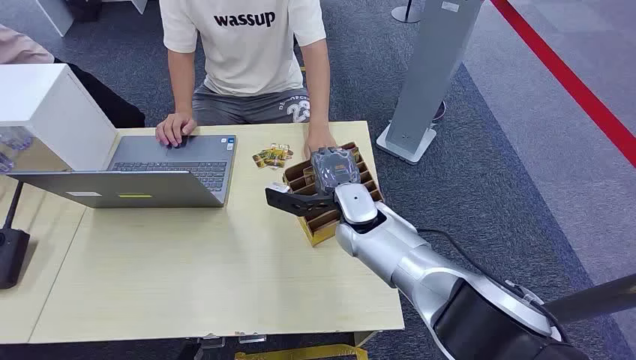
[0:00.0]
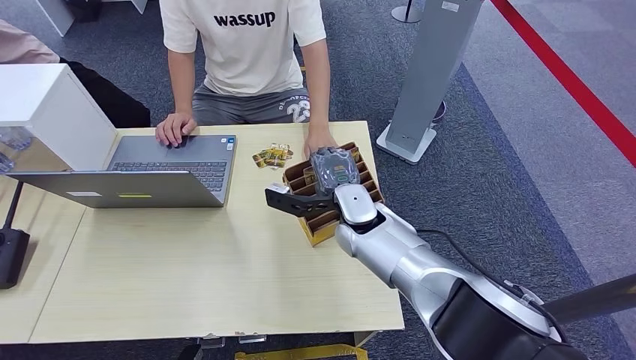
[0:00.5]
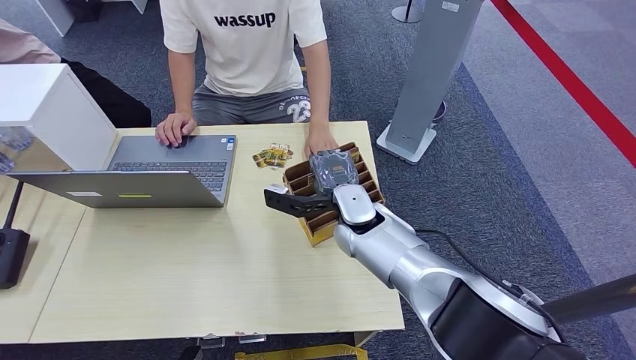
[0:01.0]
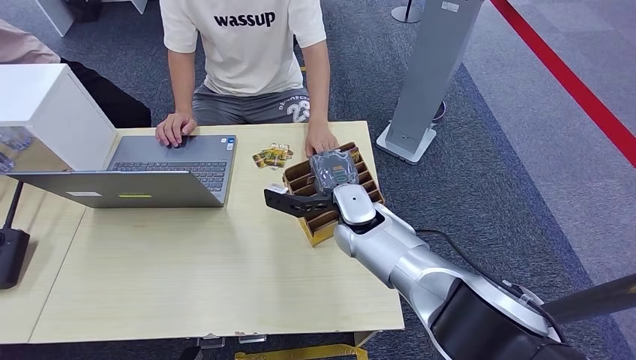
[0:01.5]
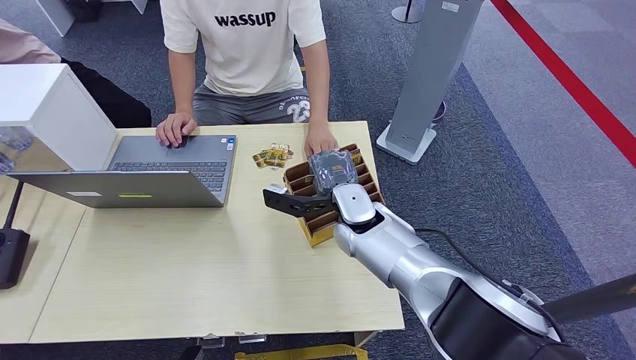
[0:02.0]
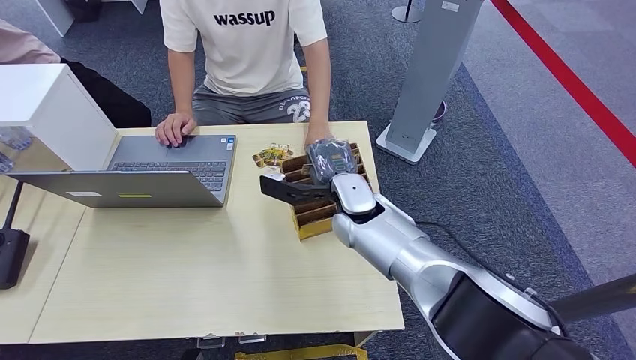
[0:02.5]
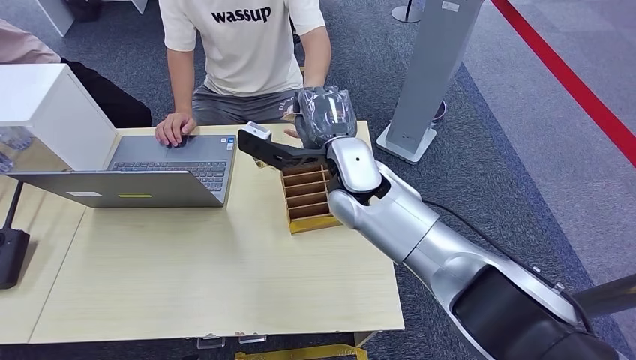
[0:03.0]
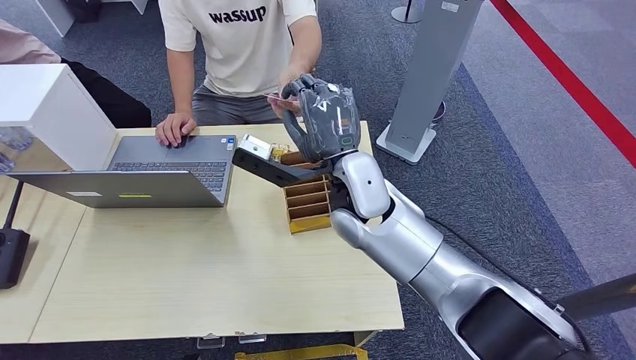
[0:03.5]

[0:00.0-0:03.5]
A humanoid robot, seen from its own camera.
Step, 0:00.0 to 0:02.0: Pick up the room card from the card holder.
Step, 0:03.0 to 0:03.5: Hand the room card to the target.
0:02.0 to 0:03.5: The right hand heads upward, covering roughly 10 cm.

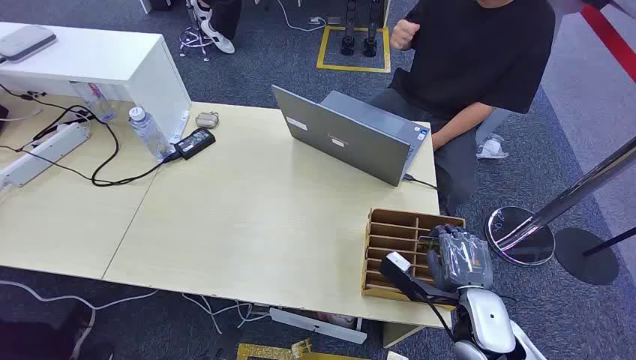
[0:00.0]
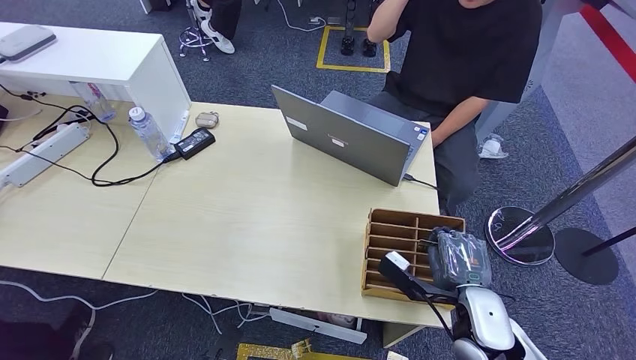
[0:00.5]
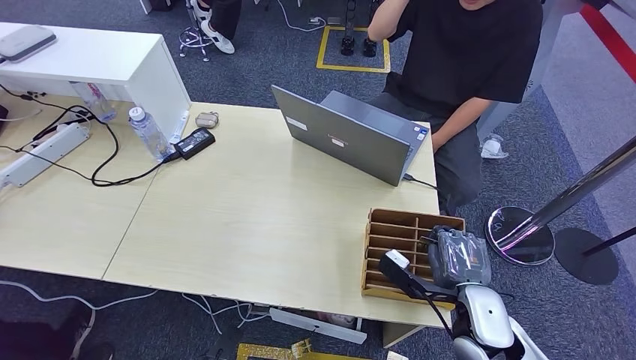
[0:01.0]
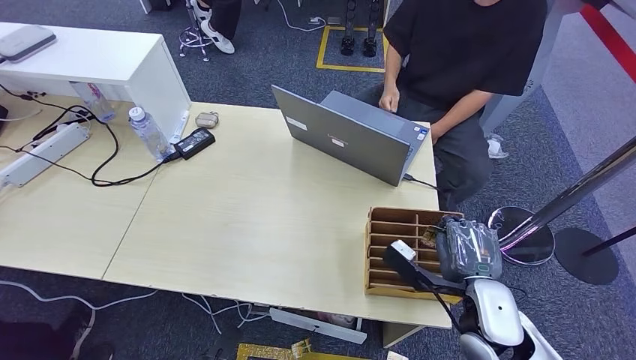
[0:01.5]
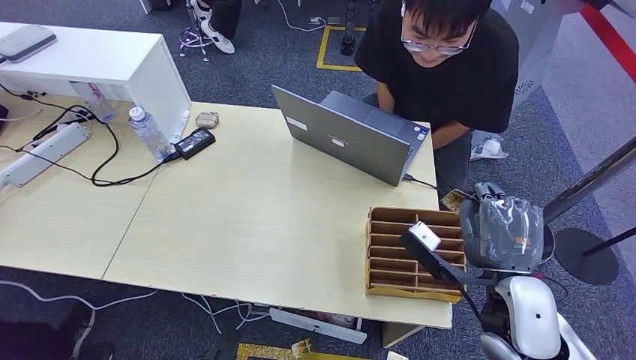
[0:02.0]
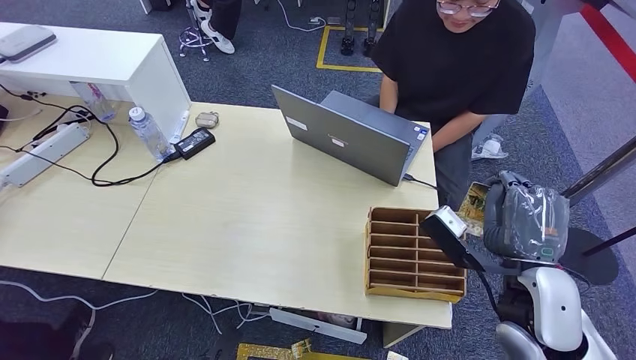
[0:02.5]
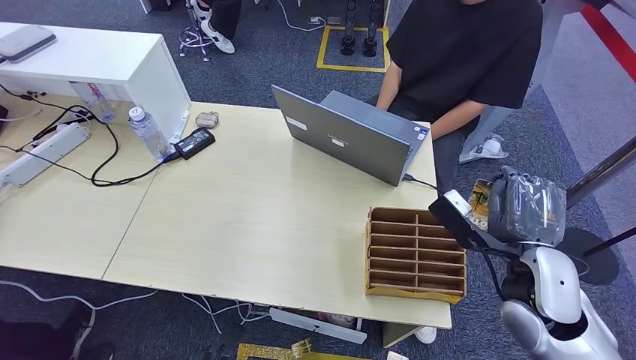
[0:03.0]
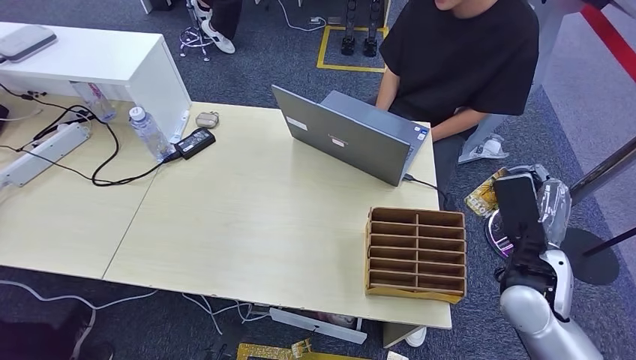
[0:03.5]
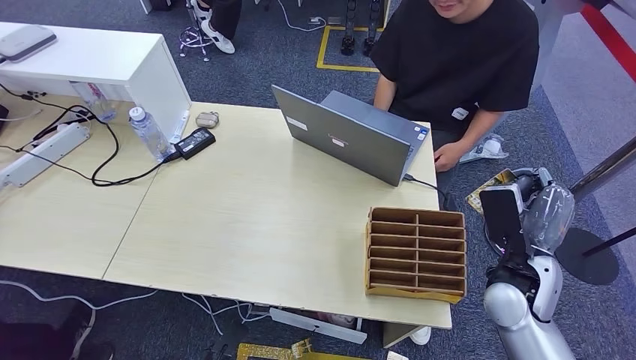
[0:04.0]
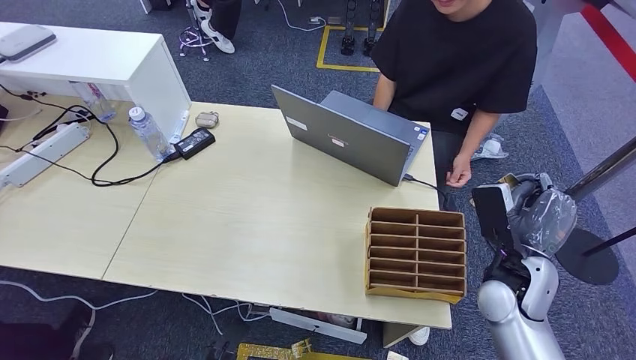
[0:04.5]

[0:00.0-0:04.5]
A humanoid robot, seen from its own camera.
Step, 0:00.0 to 0:02.5: Pick up the room card from the card holder.
Step, 0:03.0 to 0:04.5: Hand the room card to the target.
0:02.0 to 0:04.5: The right hand shifts roughly 5 cm forward.
